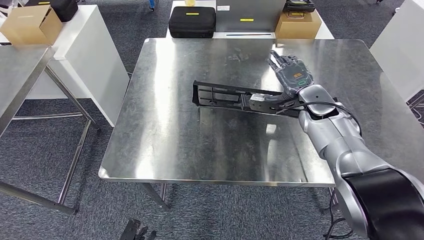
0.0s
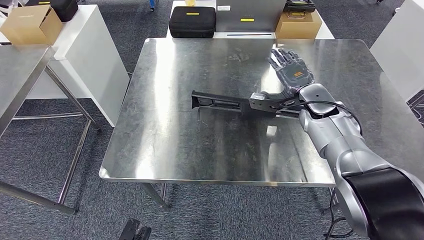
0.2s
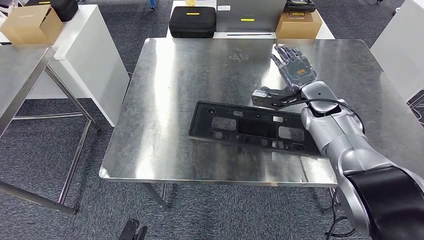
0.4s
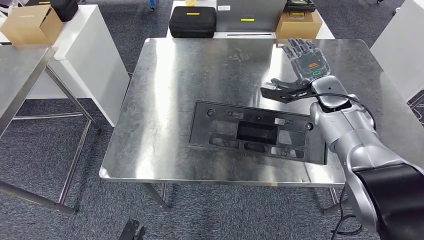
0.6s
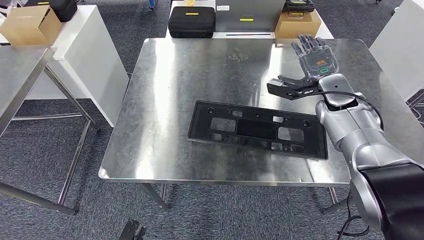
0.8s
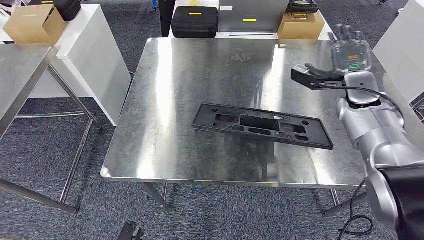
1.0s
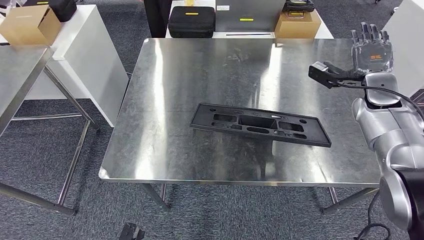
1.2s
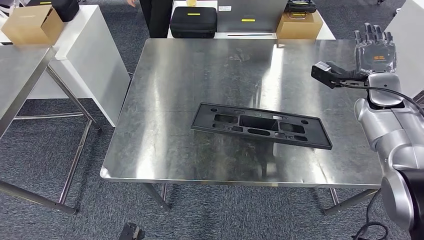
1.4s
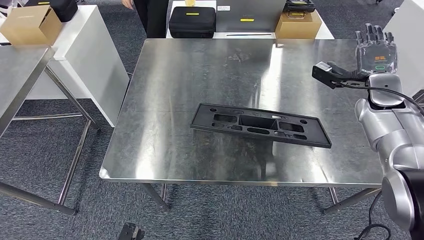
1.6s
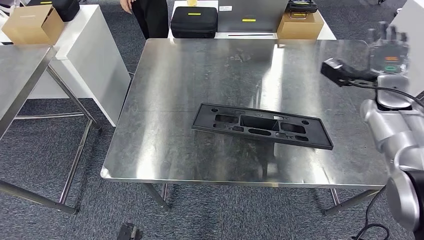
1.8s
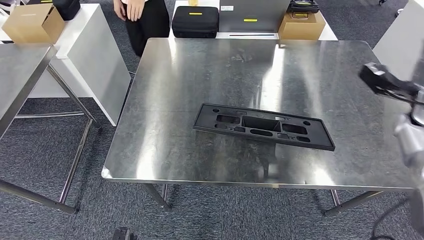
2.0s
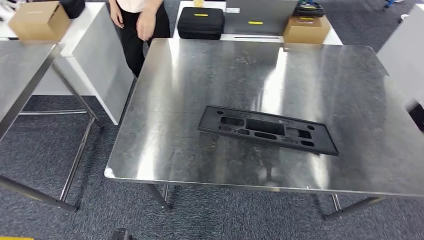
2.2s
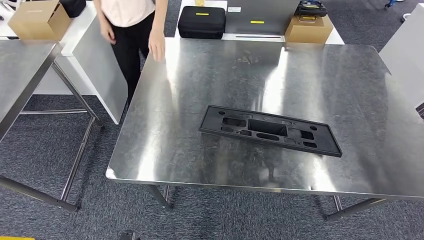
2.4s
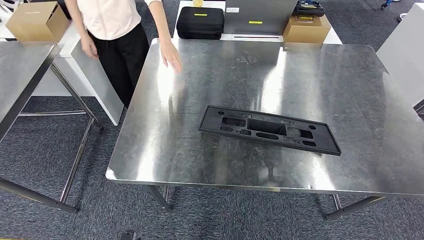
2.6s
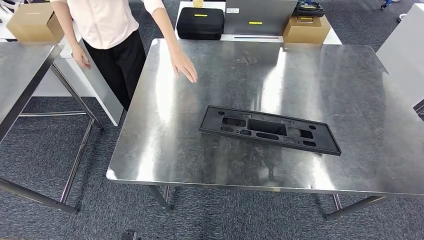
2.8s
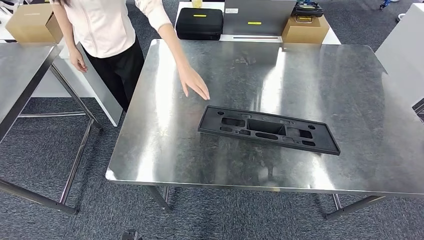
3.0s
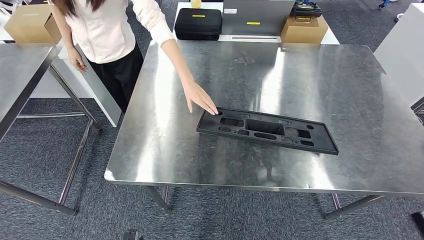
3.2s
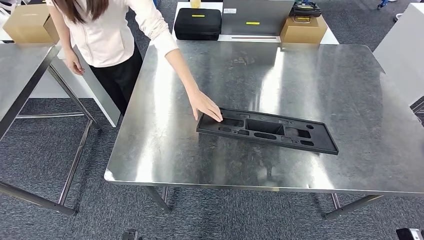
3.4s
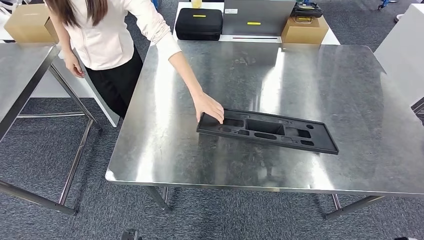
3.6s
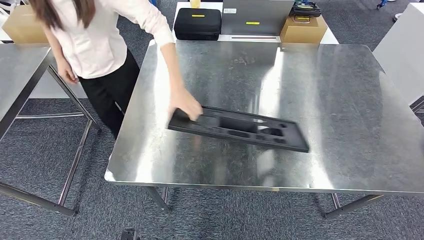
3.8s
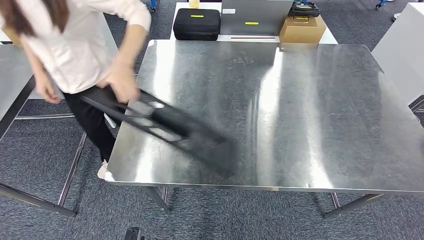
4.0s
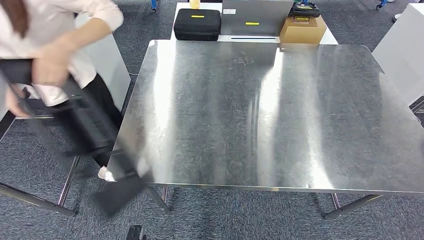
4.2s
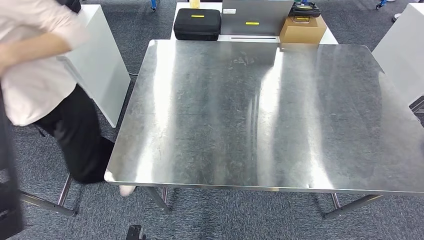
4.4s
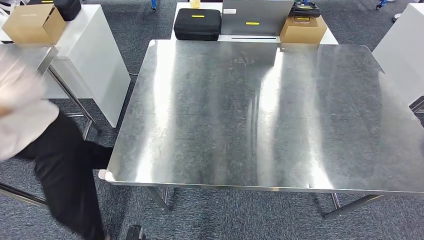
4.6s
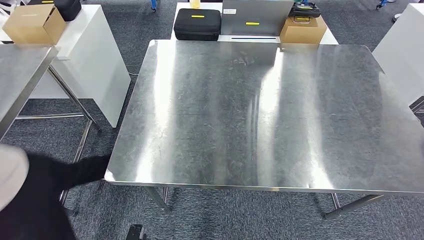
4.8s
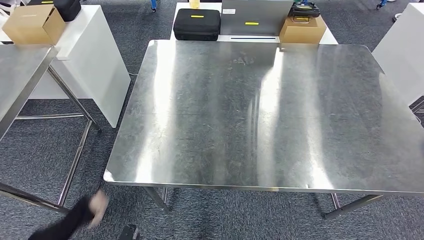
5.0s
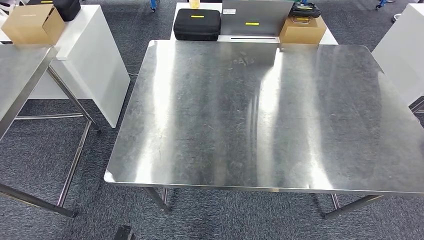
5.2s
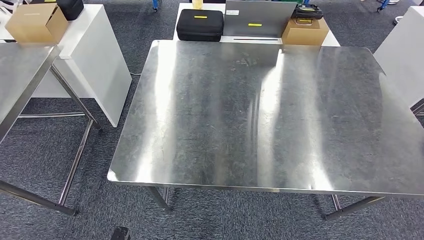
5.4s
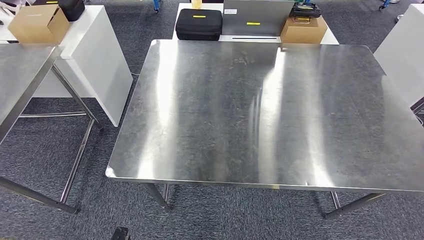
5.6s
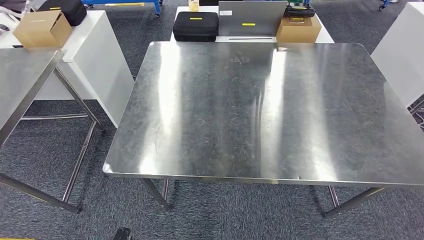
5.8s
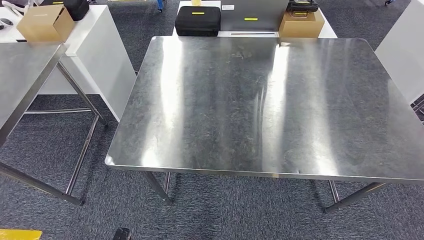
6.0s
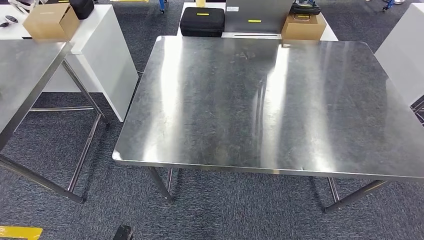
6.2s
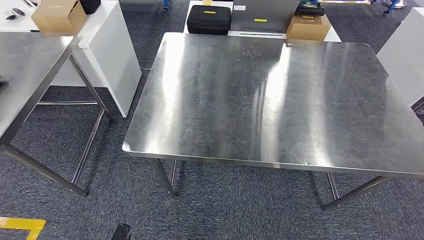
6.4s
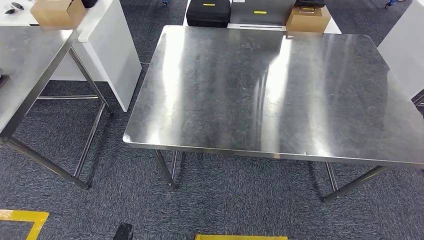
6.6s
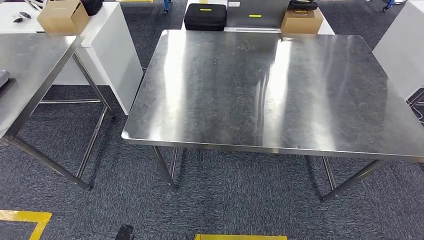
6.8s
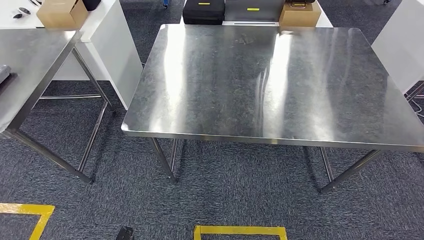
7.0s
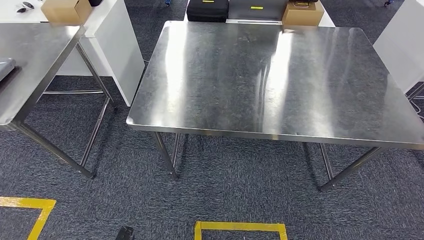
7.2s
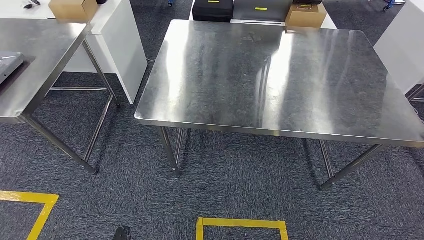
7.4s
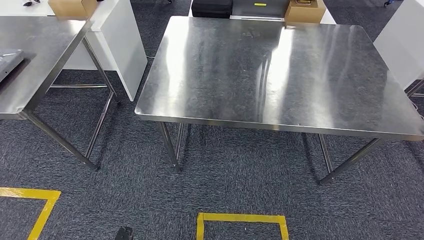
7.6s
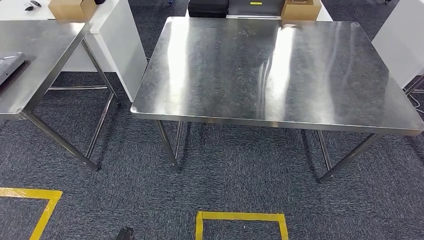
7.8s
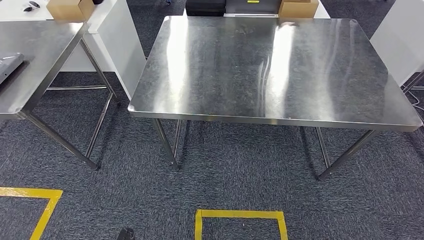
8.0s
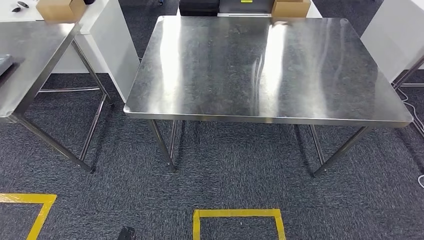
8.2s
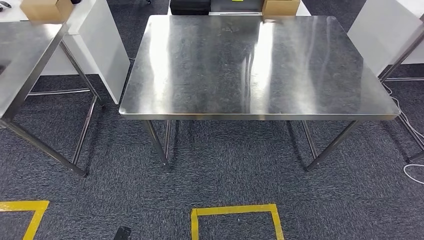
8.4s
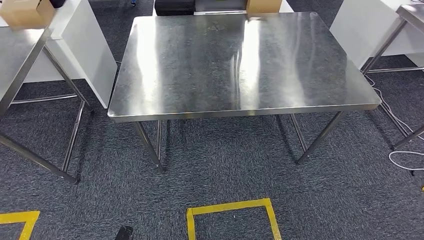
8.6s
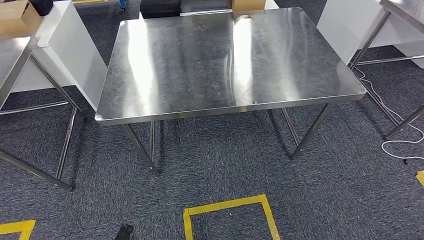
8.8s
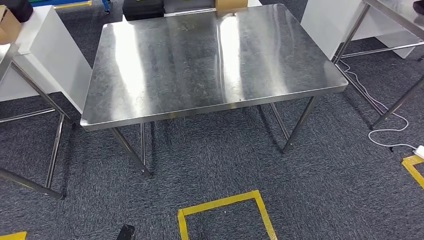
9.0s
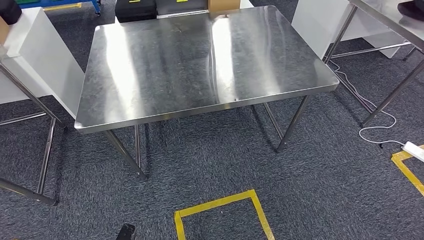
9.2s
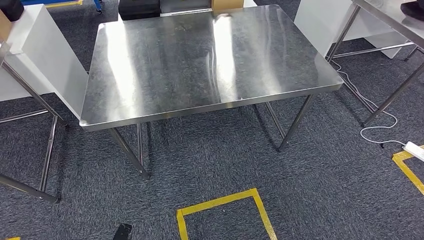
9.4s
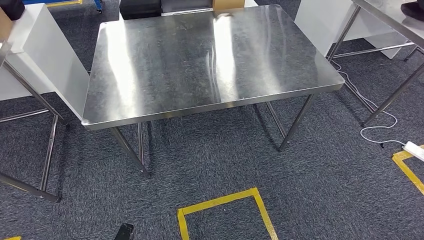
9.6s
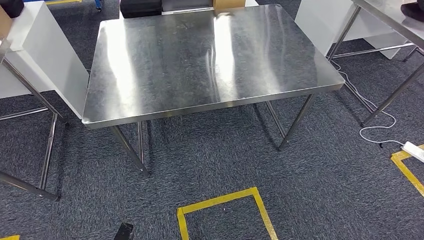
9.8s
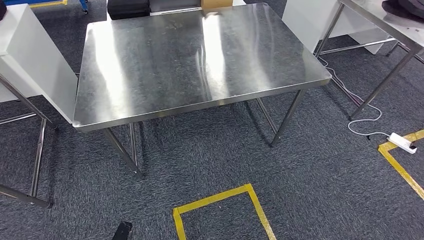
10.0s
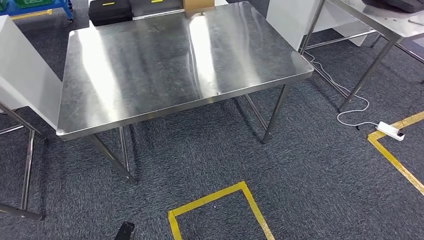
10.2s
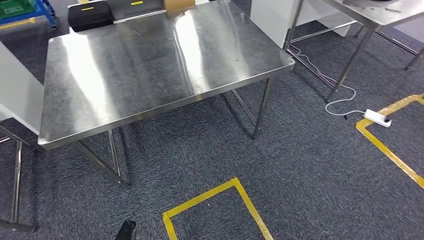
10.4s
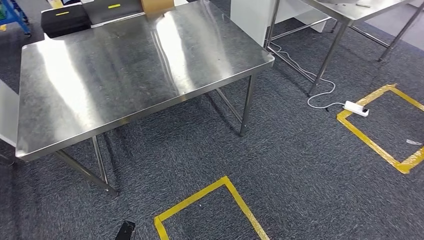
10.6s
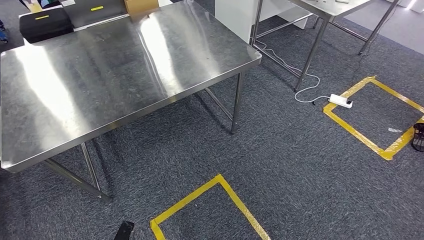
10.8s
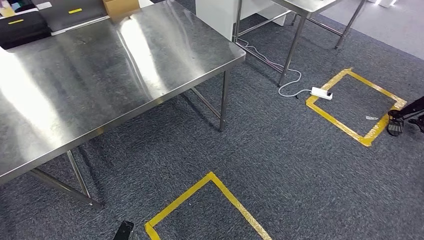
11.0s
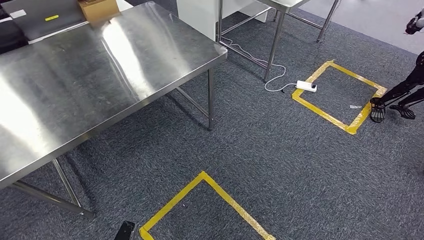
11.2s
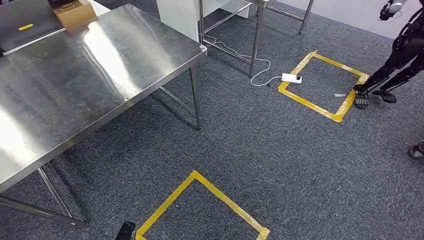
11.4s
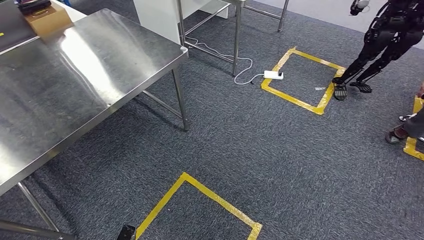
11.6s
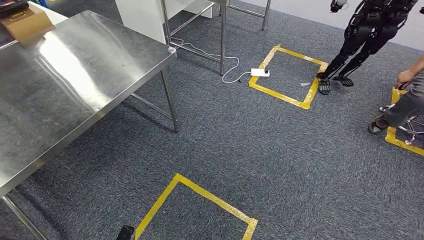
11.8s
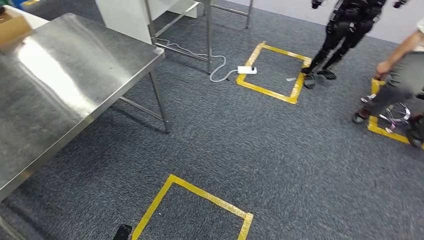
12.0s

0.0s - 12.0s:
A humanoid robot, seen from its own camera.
Step, 0.0s - 7.8s: Insert the large material into the corresponding slot on the workbench.

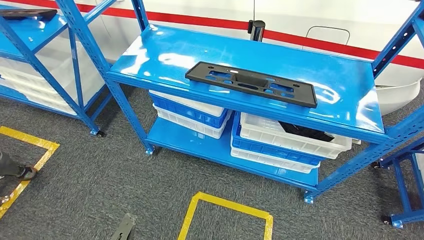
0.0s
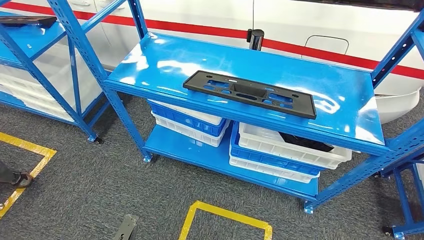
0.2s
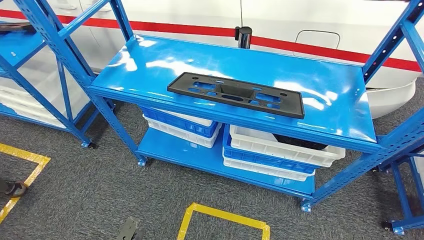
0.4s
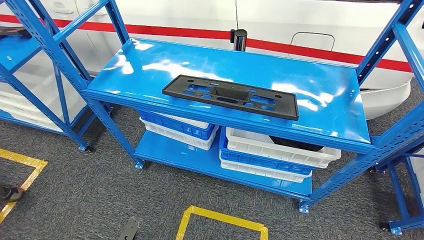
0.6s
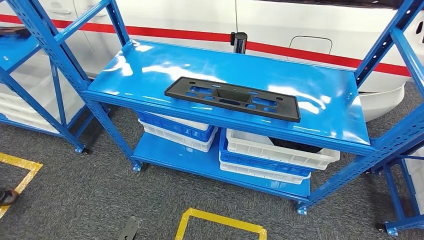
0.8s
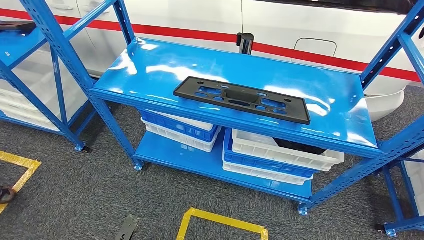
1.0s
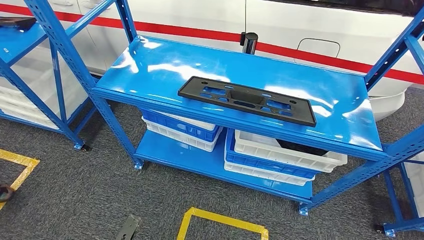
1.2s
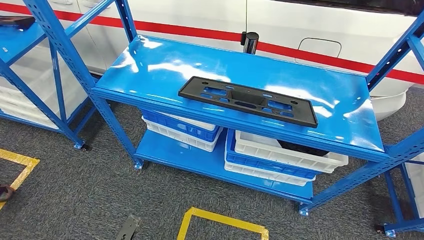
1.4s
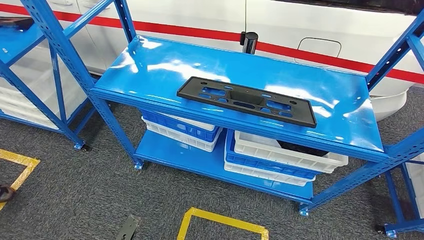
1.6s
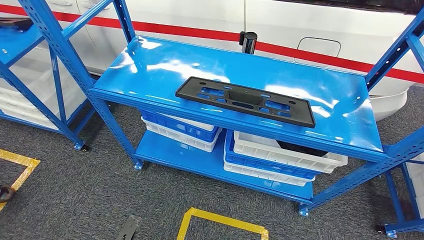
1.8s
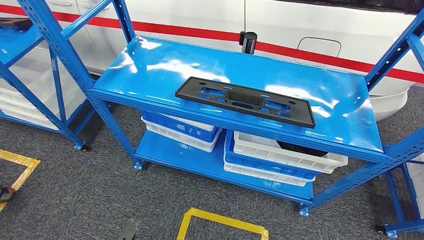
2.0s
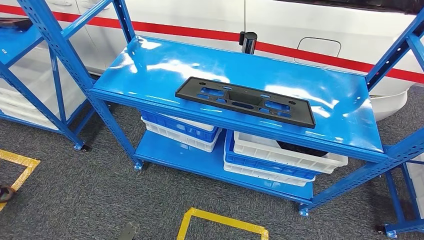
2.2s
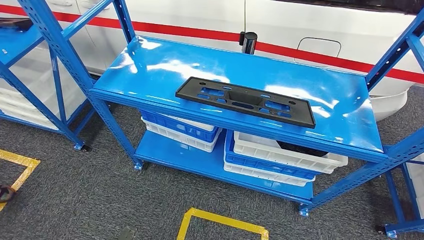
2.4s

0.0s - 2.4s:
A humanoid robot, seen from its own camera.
Step, 0.0s - 2.4s: Move to the initial position of the shelf.
1.2s - 2.4s: The hands make only small movements.
